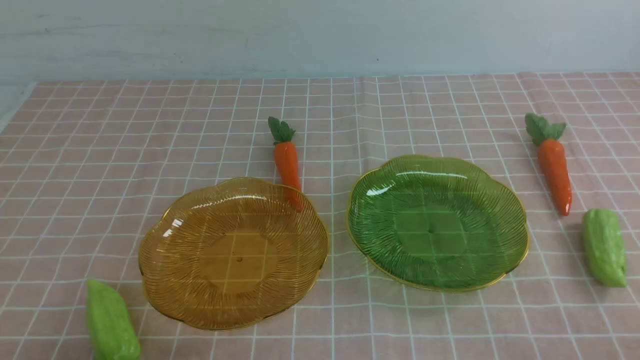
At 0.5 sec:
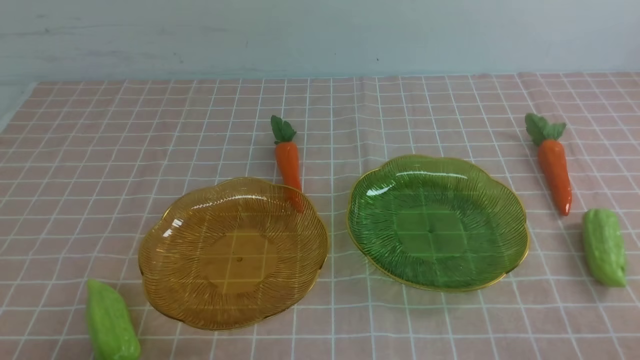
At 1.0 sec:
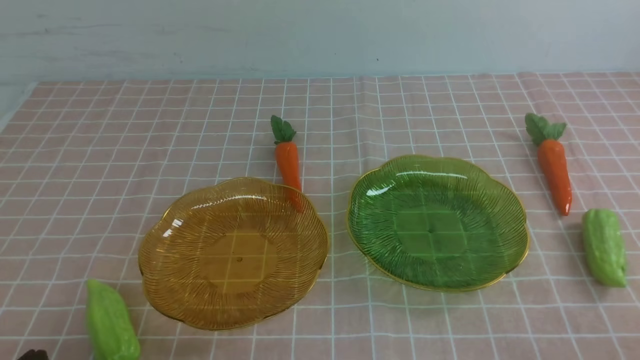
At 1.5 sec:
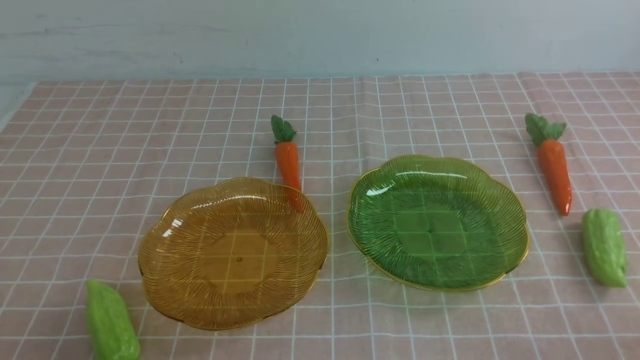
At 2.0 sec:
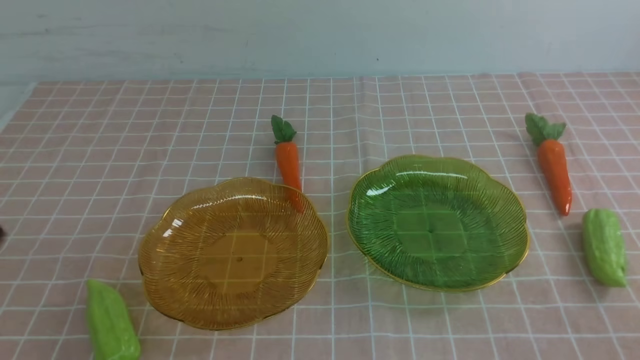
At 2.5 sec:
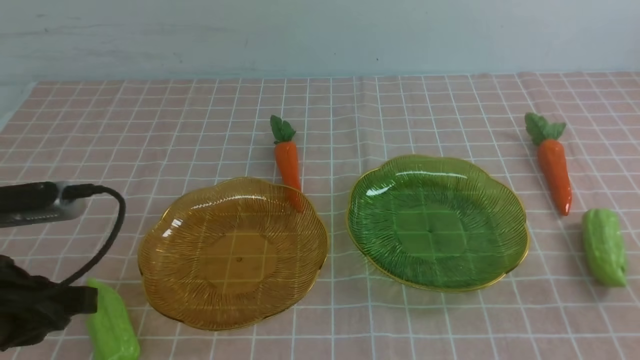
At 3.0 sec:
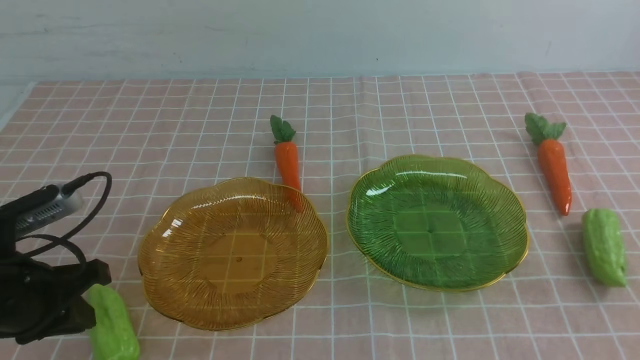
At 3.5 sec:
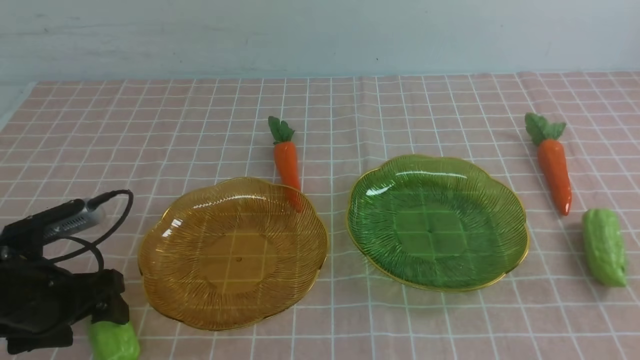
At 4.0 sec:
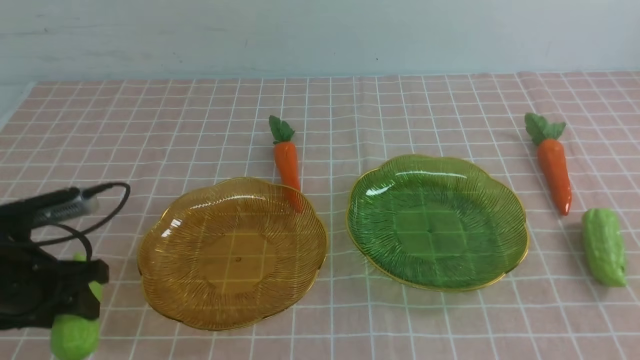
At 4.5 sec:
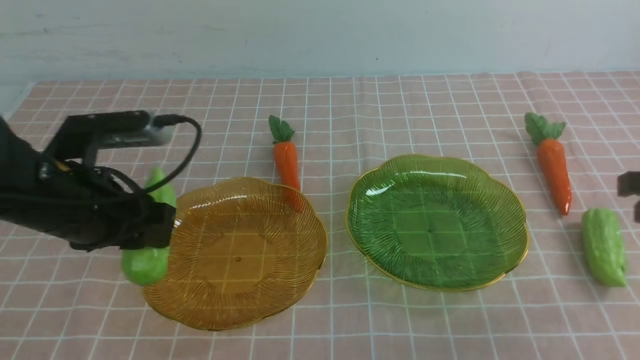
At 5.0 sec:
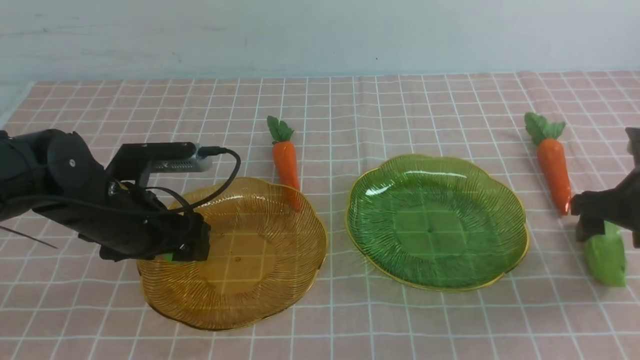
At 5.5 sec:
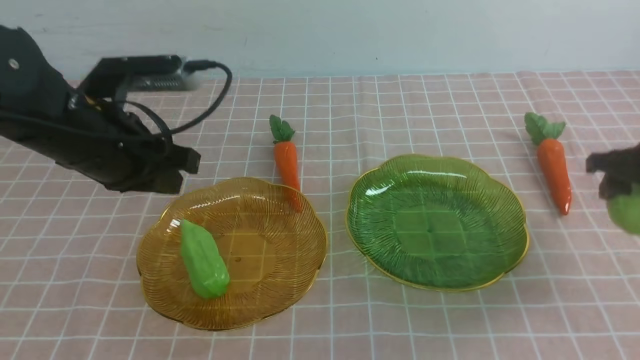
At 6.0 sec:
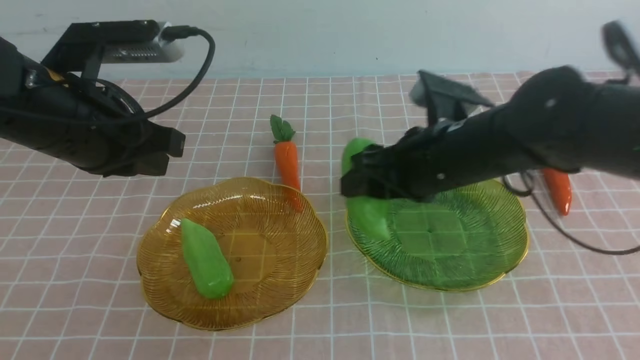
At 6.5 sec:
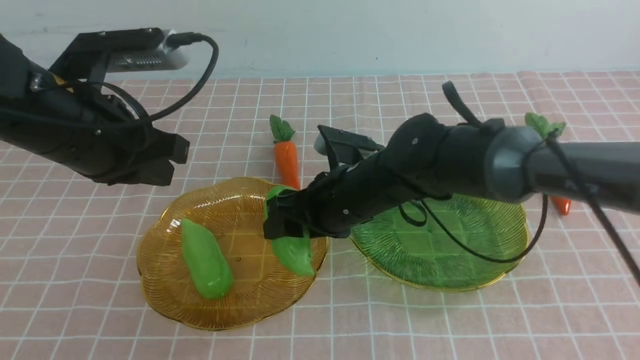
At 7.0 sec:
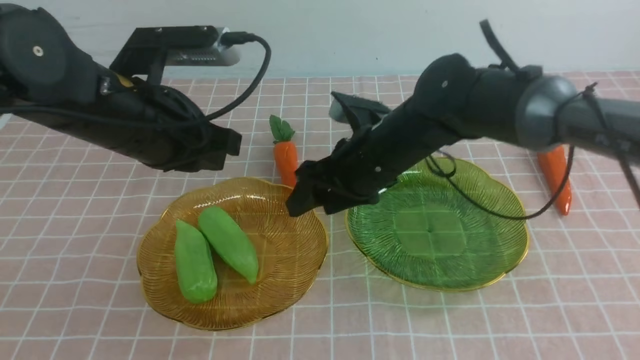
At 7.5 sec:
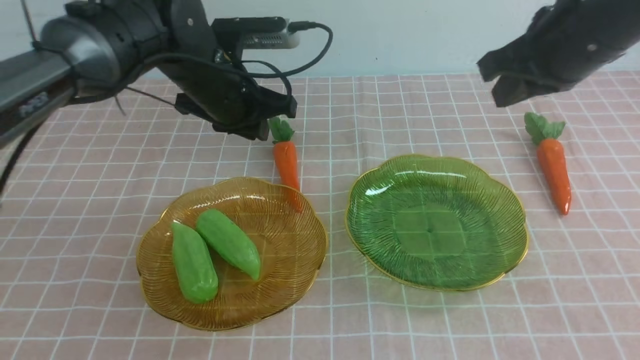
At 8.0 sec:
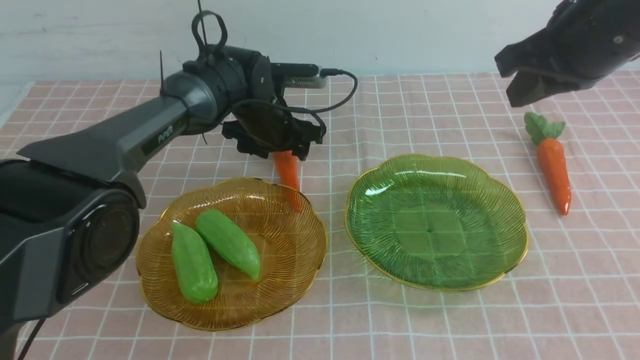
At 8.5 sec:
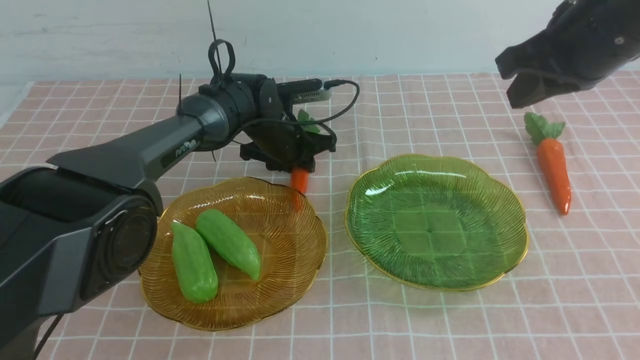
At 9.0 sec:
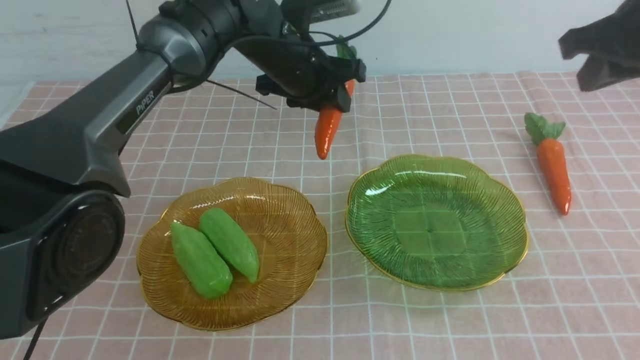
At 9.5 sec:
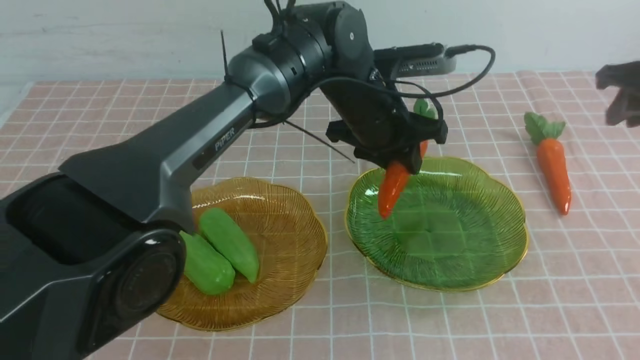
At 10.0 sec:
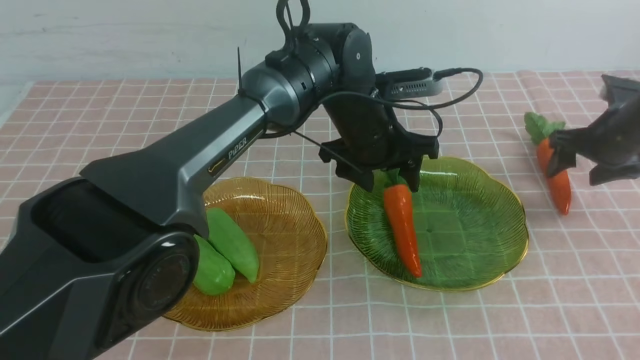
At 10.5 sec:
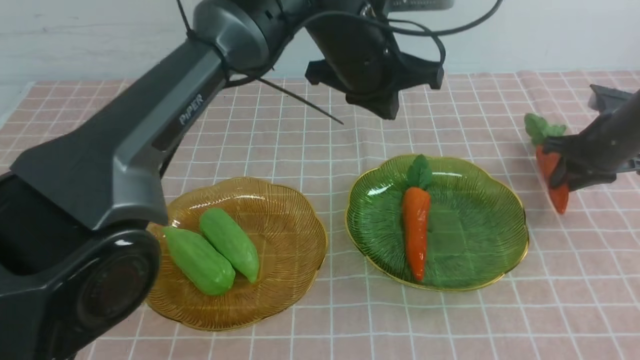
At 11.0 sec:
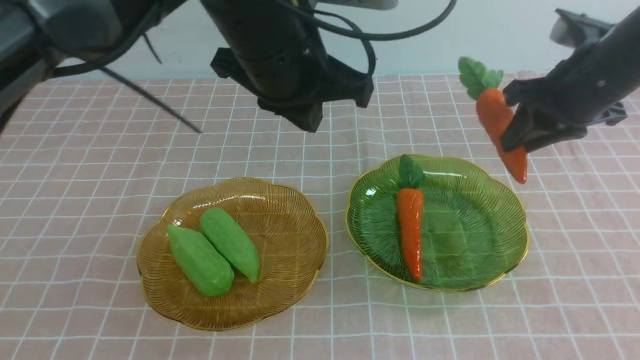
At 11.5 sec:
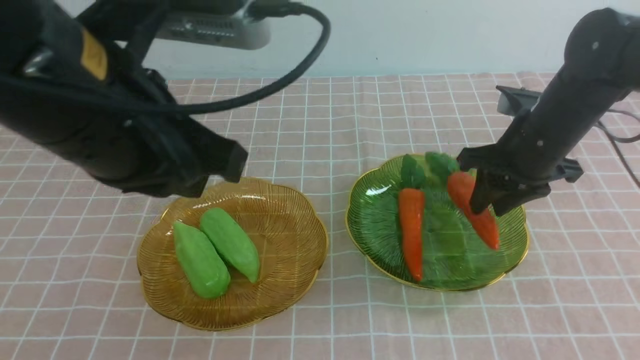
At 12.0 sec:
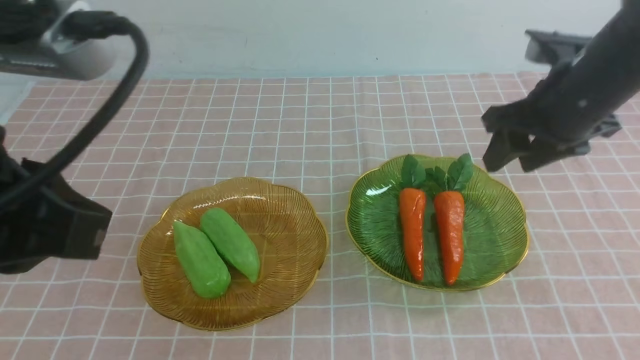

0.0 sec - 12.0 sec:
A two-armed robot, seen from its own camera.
Step, 0.0 sec - 5.0 sec: use the left arm to grab a chayote and put it into the left plate.
Step, 5.5 sec - 6.5 sec: Grab the chayote with your right arm and put it on the left plate.
Step, 7.0 sec - 9.5 sec: use the left arm to grab a carrot and put it into the right plate.
Step, 10.0 sec - 11.5 sec: use the right arm to grab a carrot and put it into the right plate.
2.0 sec - 4.0 sec: The left gripper goes about 20 cm forward and downward, and opens up.
4.0 sec - 6.0 sec: The left gripper travels upward and to the right by roughly 15 cm, and closes, while the right gripper is displaced to the left, forward and downward by some 30 cm, and opens its fingers.
6.0 sec - 8.0 sec: The right gripper heads to the right and upward, covering some 20 cm, and closes up, while the left gripper goes approximately 30 cm forward, downward and to the right, and opens.
8.0 sec - 10.0 sec: The right gripper moves downward, to the right and forward, approximately 30 cm, and opens up, while the left gripper moves to the right, upward and backward, roughly 15 cm, and closes.
10.0 sec - 12.0 sec: The left gripper shifts about 40 cm backward, to the left and upward, and closes up. The right gripper moves up and down over roughly 15 cm, changing direction 2 times.

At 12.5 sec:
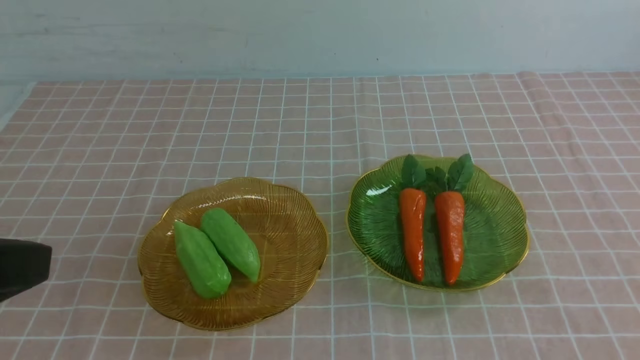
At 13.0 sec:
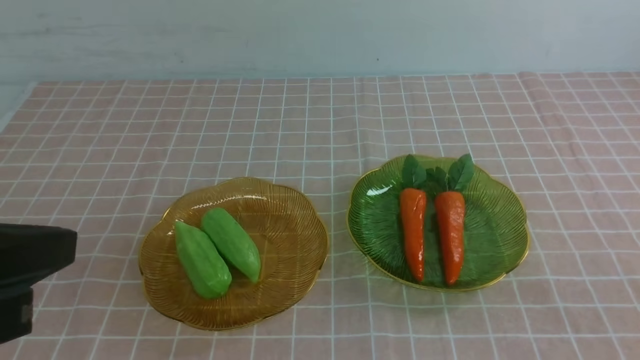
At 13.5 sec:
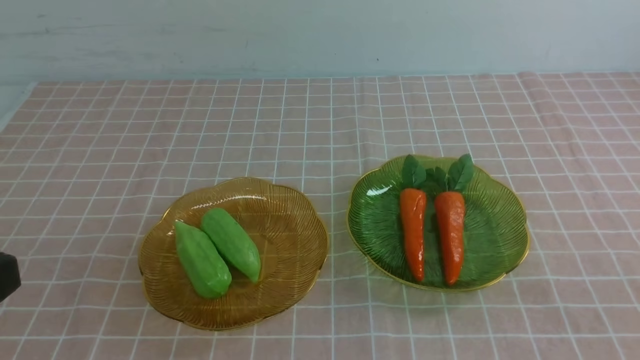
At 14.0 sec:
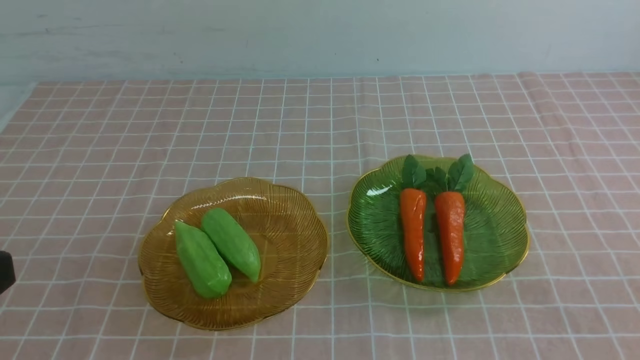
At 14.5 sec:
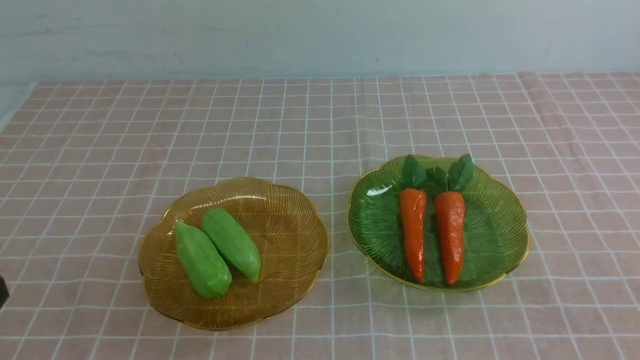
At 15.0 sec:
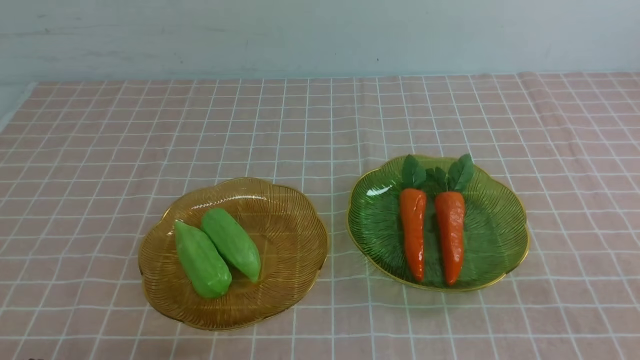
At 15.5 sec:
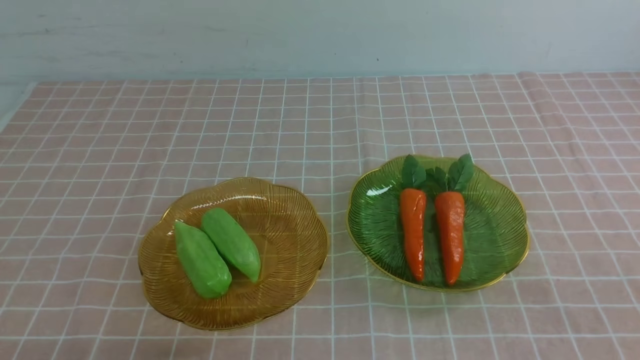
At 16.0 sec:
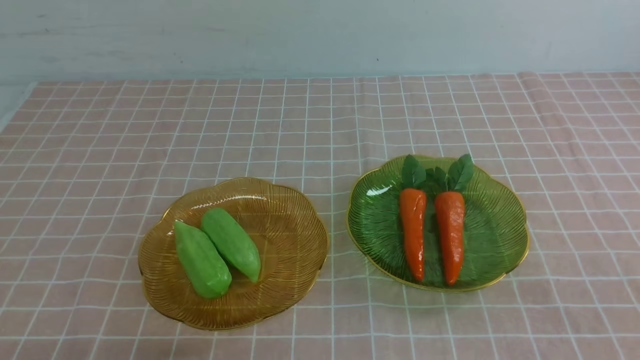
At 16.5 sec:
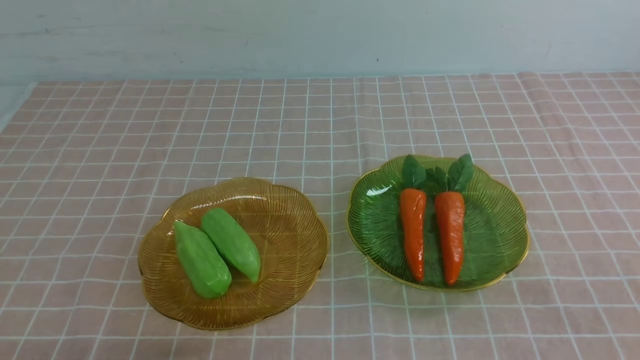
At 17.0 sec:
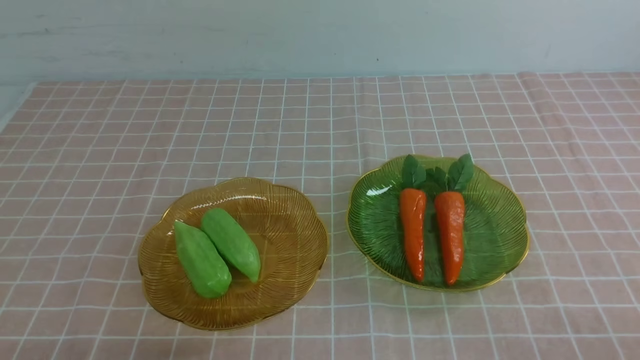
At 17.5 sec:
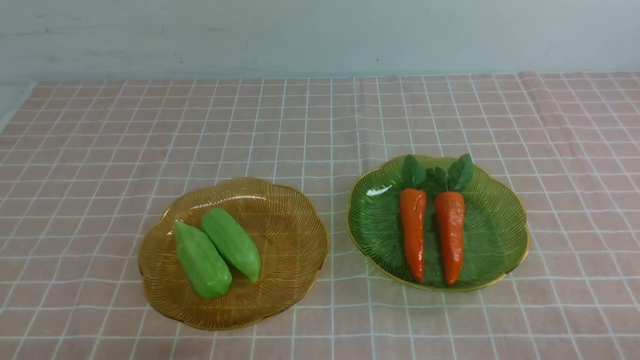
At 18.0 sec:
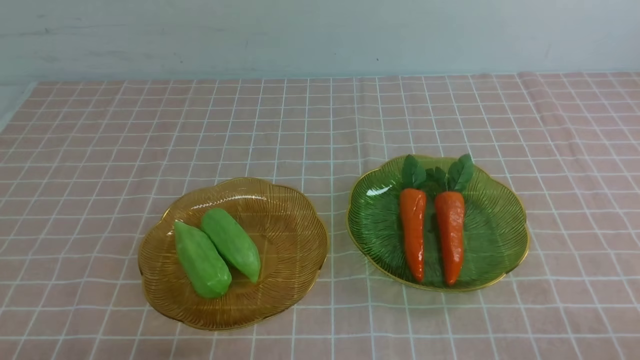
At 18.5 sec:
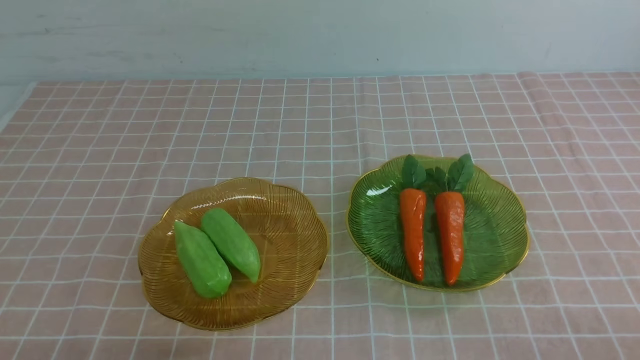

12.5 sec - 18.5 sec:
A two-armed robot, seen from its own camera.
12.5 sec - 14.5 sec: The left gripper goes about 10 cm downward.
